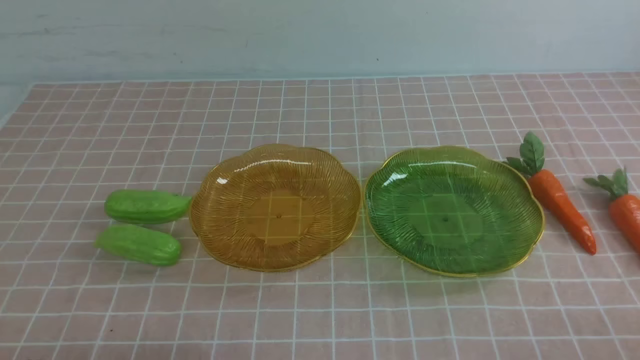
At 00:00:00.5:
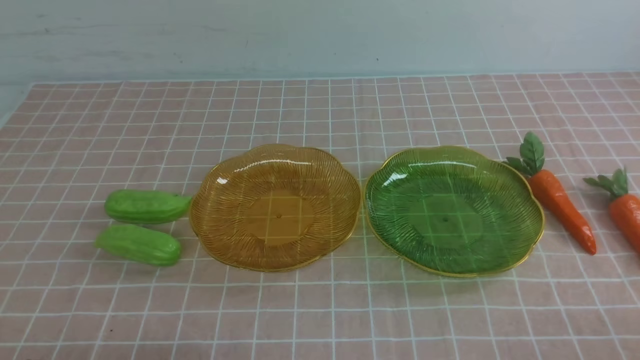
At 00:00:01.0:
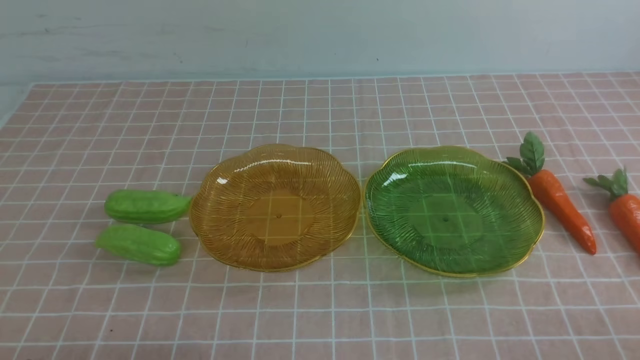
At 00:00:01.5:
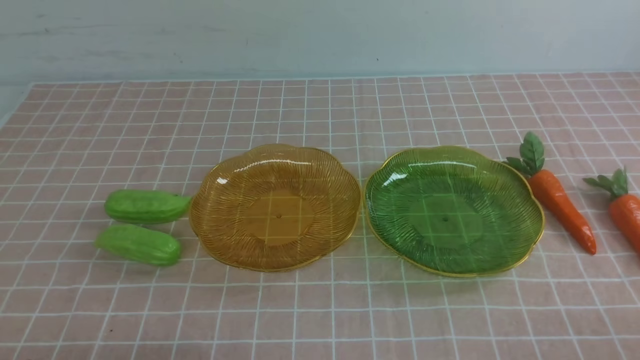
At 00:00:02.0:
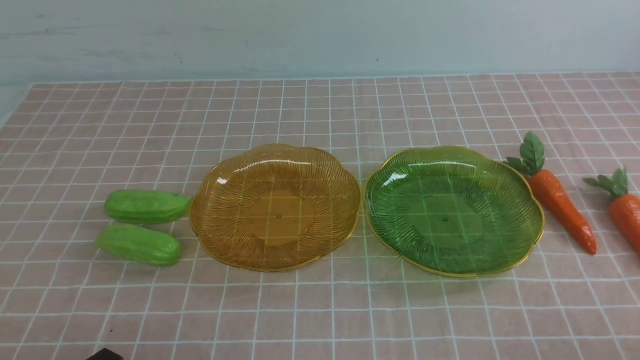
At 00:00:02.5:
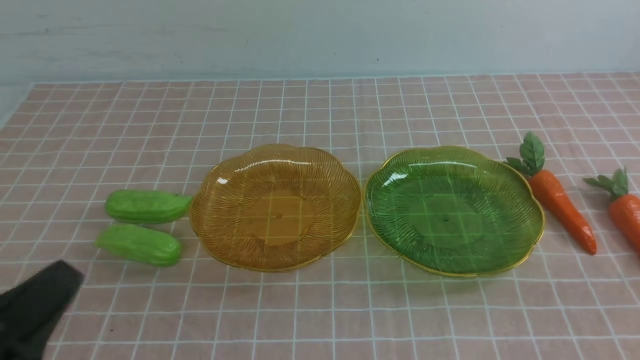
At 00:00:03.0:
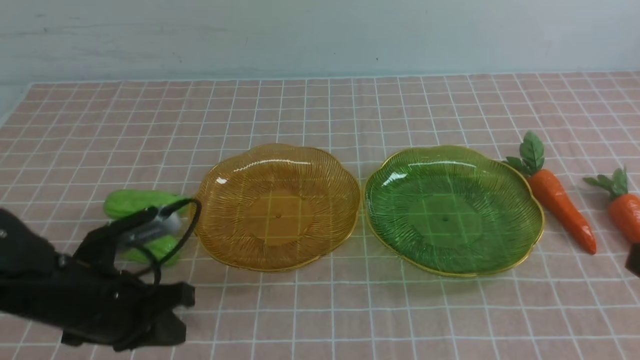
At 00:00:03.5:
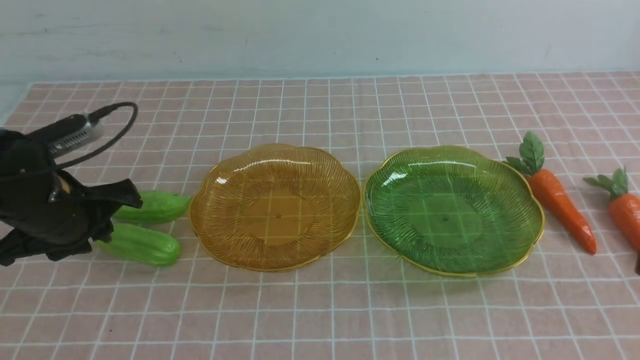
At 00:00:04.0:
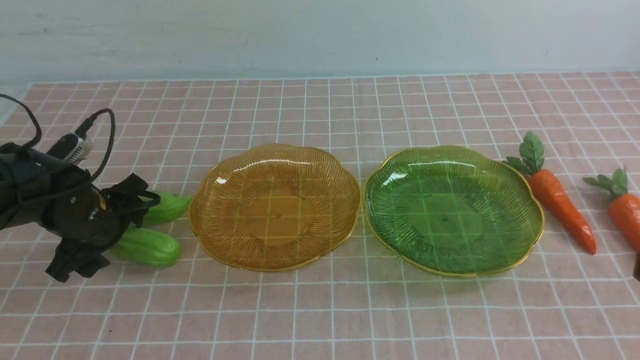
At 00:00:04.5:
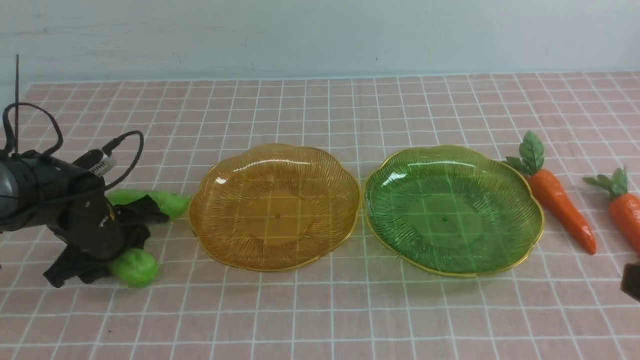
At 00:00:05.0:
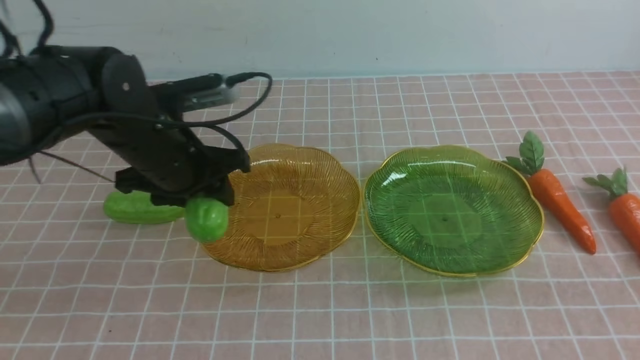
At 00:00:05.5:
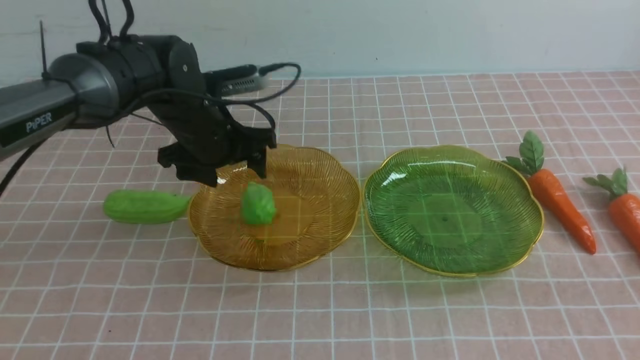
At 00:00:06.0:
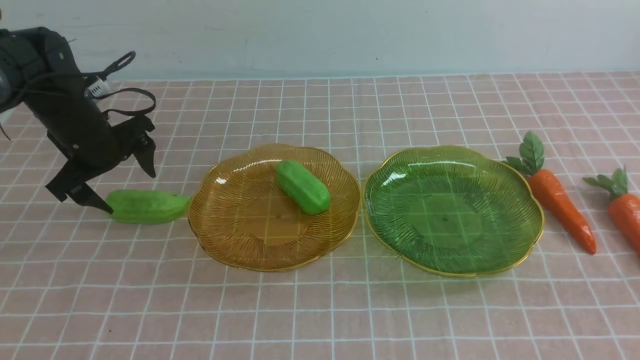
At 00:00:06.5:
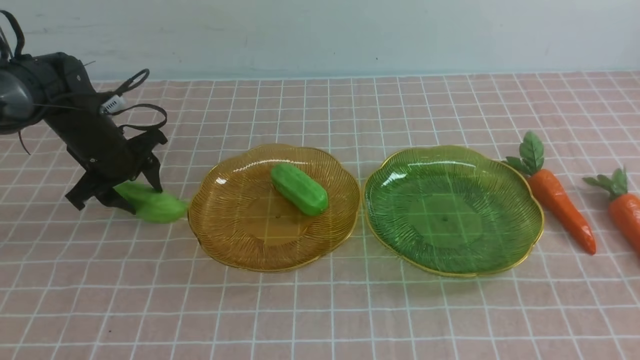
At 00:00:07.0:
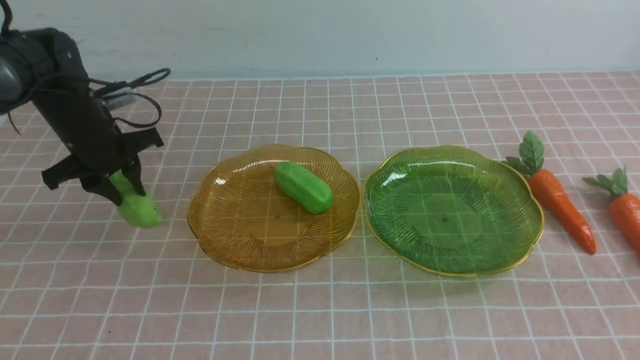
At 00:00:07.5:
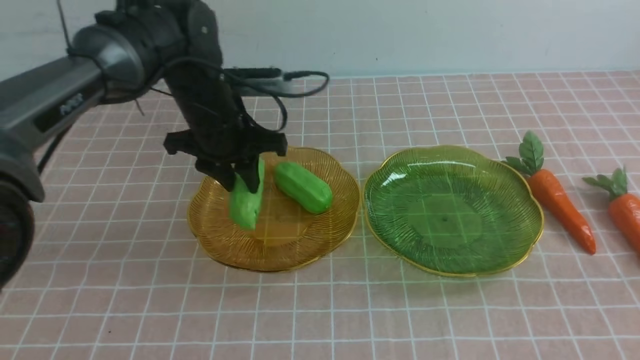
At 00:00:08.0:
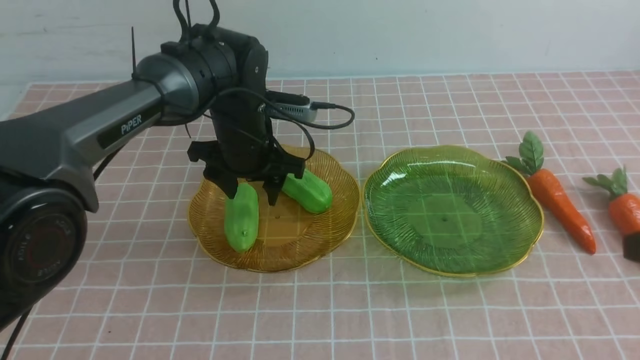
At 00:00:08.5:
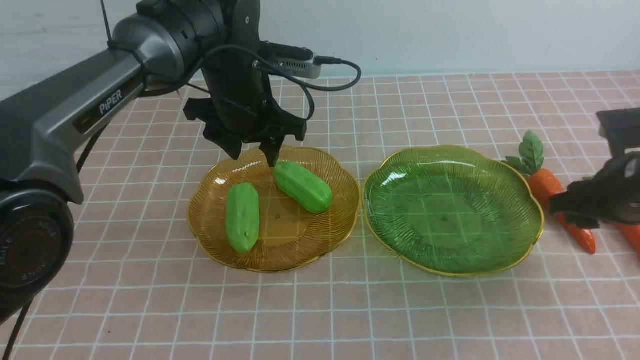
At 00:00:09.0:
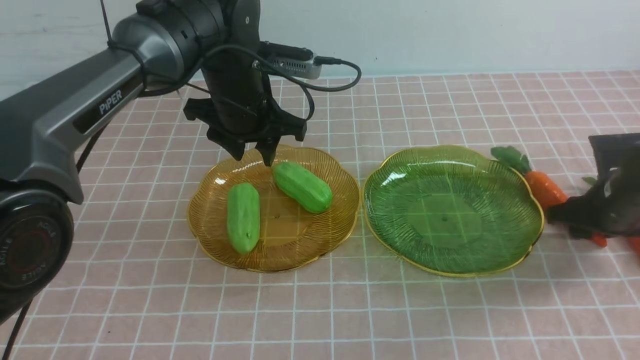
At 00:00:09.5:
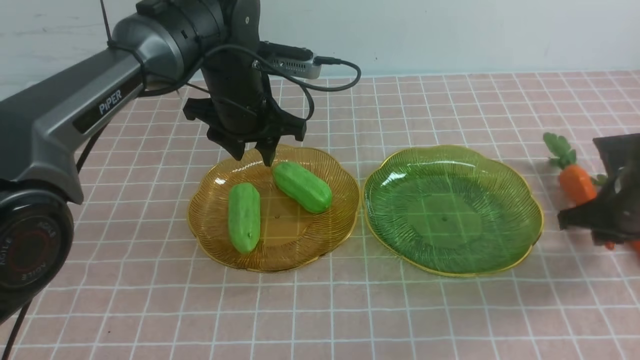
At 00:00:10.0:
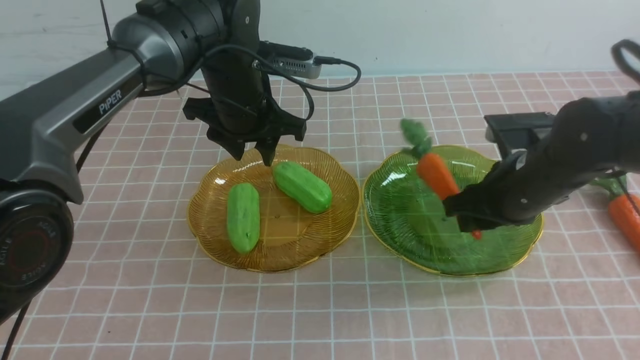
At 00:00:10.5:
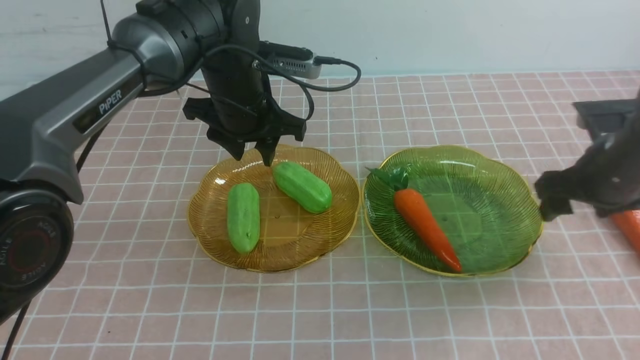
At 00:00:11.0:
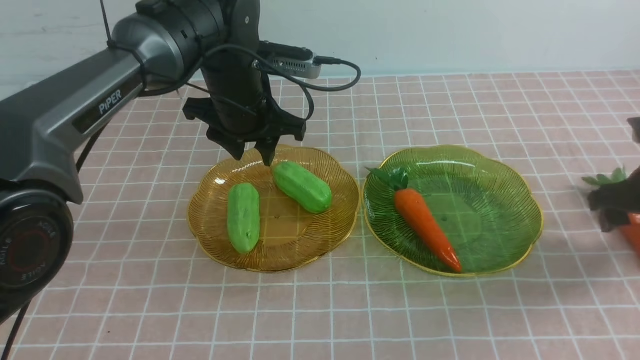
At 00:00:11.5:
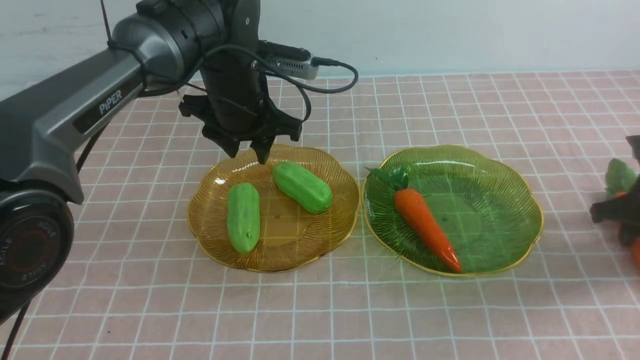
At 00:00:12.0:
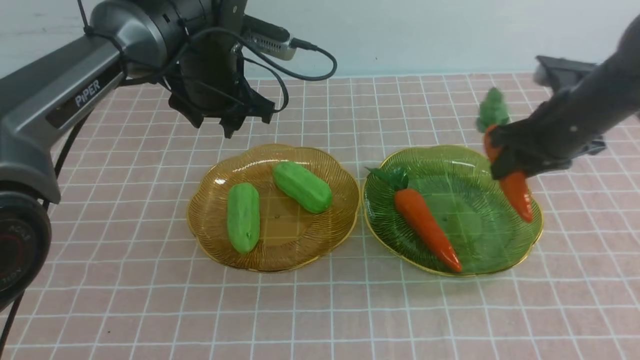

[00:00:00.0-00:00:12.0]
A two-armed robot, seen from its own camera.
Step, 00:00:00.0 to 00:00:05.0: use the left arm to grab a chayote and put it into the left plate.
Step, 00:00:06.0 to 00:00:08.0: use the left arm to grab a chayote and put it into the left plate.
00:00:02.0 to 00:00:04.0: The left gripper shifts about 30 cm forward, and opens its fingers; the right gripper moves upward, about 10 cm.
00:00:04.0 to 00:00:06.0: The left gripper goes roughly 10 cm forward, and moves about 10 cm to the right and comes back.
00:00:06.0 to 00:00:08.0: The right gripper heads forward and downward, covering some 20 cm, and opens. The left gripper shifts some 20 cm to the right and upward.
00:00:08.0 to 00:00:10.0: The right gripper goes roughly 5 cm forward, and opens its fingers.
00:00:10.0 to 00:00:12.0: The right gripper goes to the right and returns, some 10 cm each way, and closes, then reopens.

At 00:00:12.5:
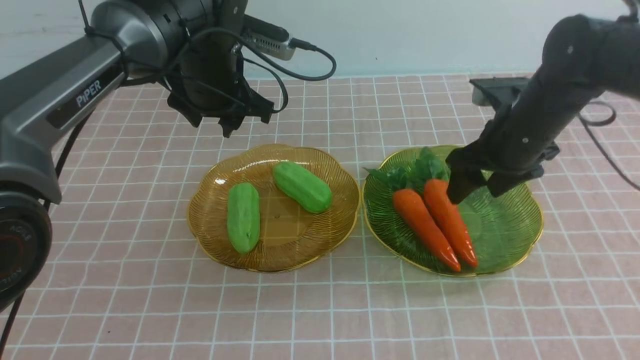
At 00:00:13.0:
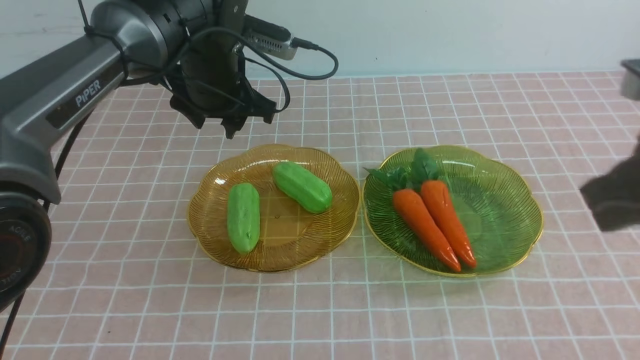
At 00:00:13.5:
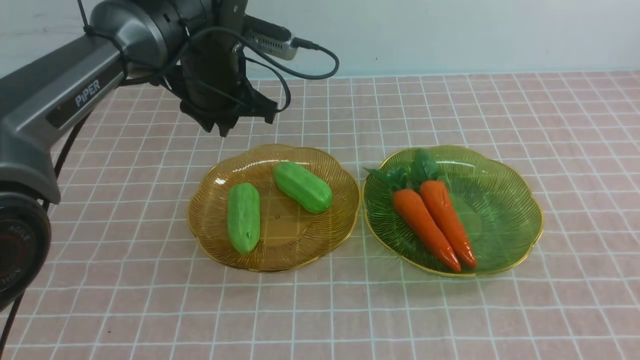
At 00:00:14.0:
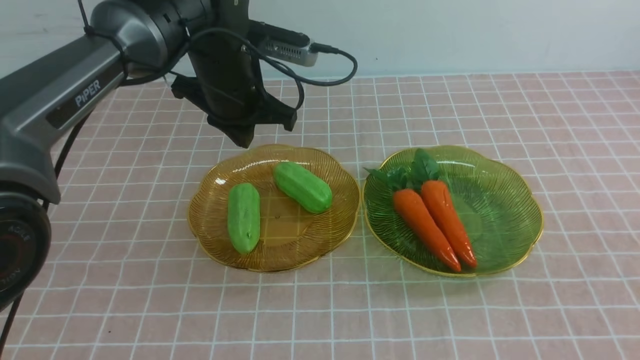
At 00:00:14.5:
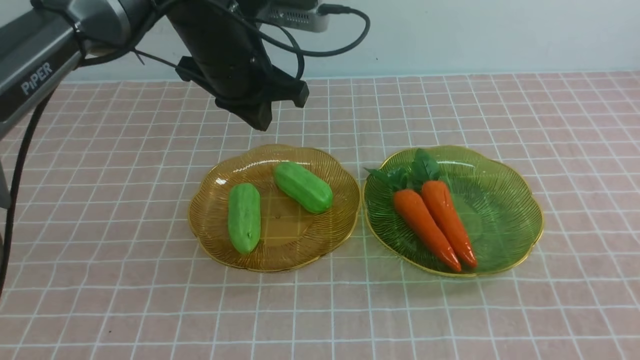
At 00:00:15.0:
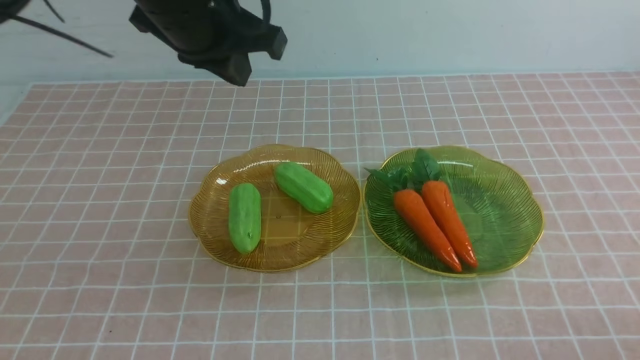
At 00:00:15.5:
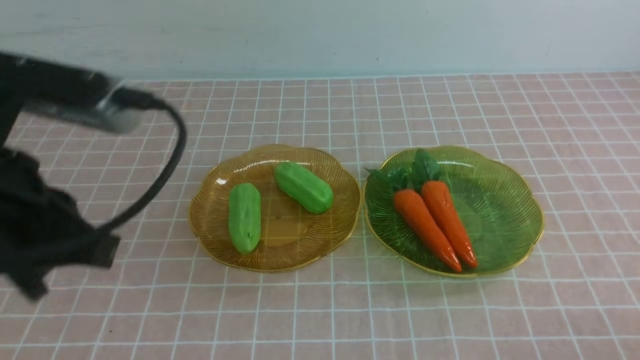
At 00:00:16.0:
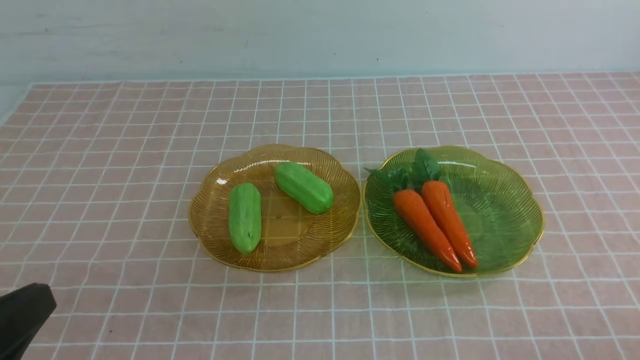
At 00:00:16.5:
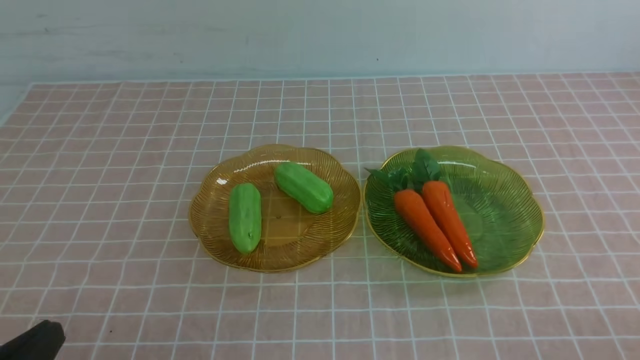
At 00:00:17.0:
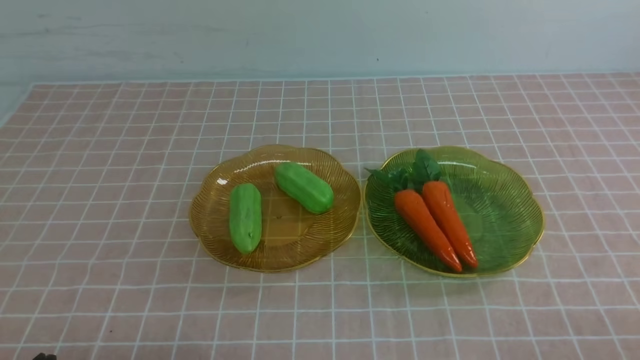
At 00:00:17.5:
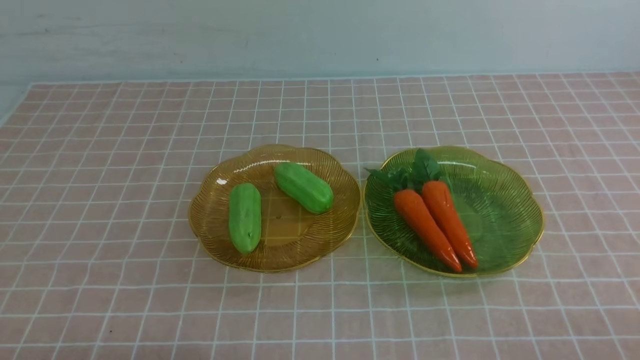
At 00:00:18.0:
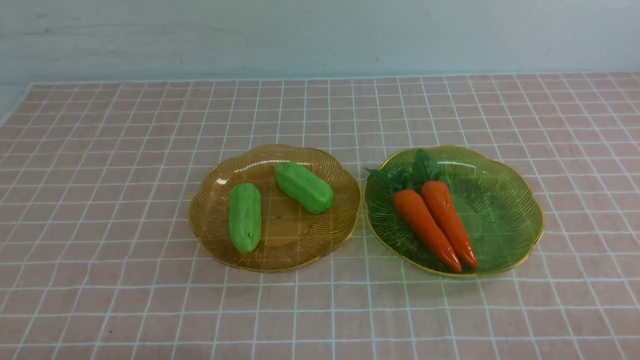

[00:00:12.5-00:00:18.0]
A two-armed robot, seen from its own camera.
00:00:12.5 to 00:00:14.5: The left gripper shifts by about 5 cm, and closes up. Meanwhile the right gripper goes approximately 25 cm backward.
00:00:14.5 to 00:00:16.0: The left gripper is displaced backward and to the left by approximately 40 cm. Meanwhile the right gripper moves downward, some 5 cm.
00:00:16.0 to 00:00:18.0: The left gripper travels downward by some 10 cm.
